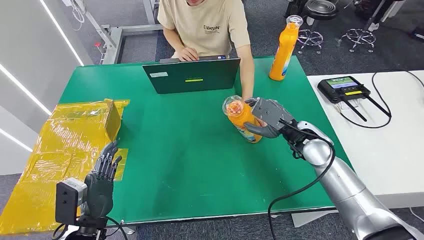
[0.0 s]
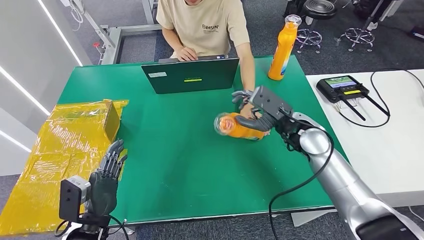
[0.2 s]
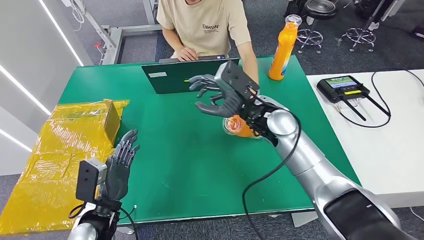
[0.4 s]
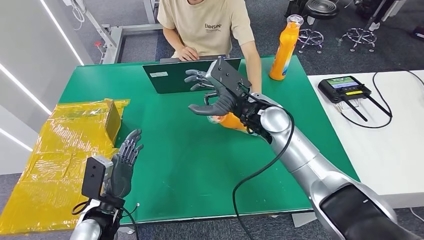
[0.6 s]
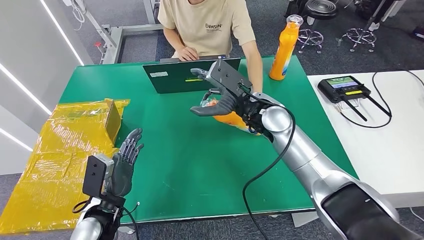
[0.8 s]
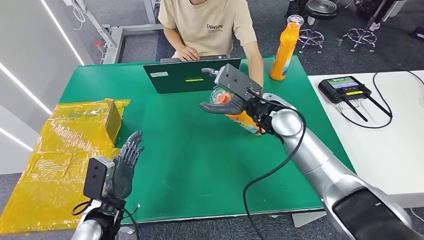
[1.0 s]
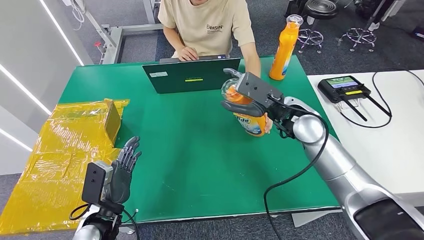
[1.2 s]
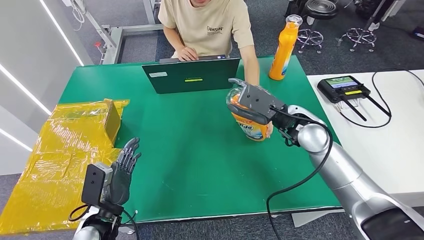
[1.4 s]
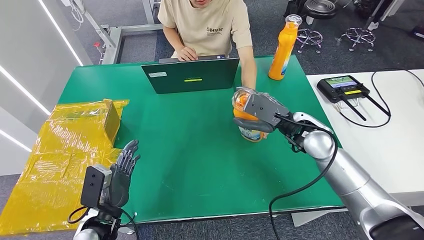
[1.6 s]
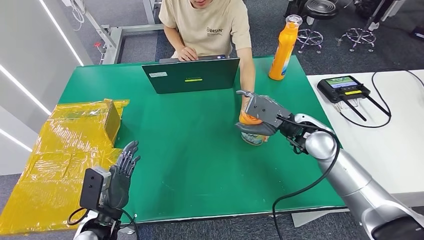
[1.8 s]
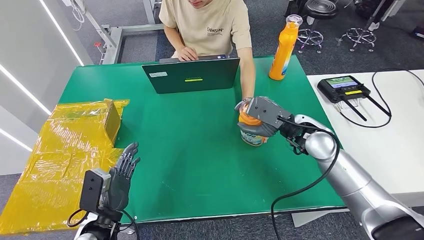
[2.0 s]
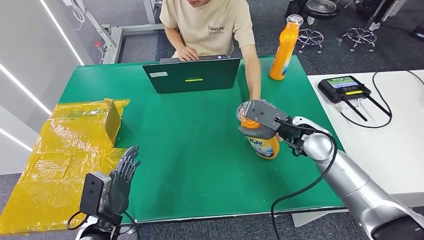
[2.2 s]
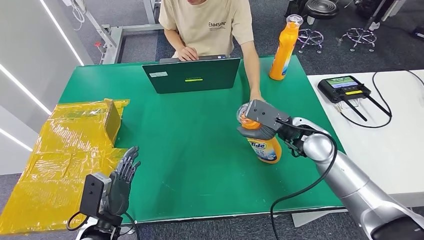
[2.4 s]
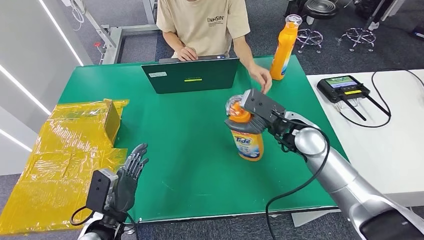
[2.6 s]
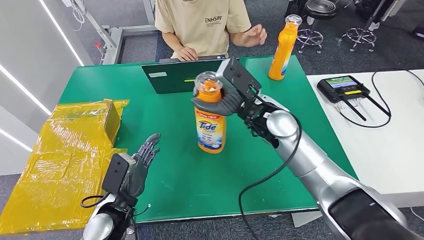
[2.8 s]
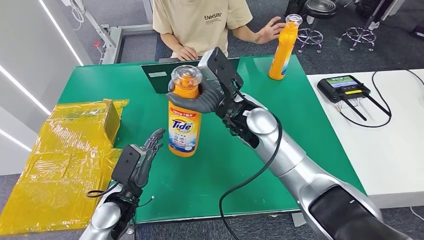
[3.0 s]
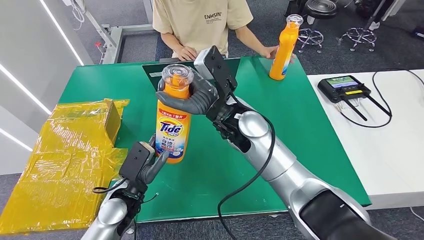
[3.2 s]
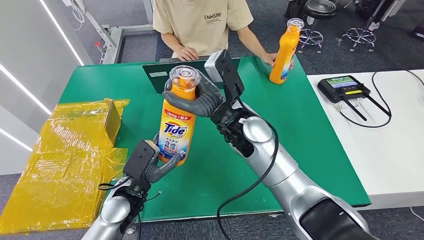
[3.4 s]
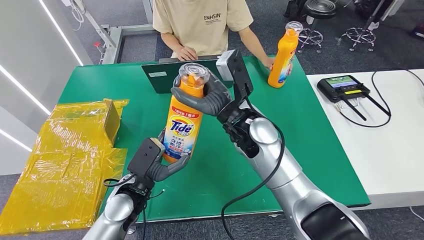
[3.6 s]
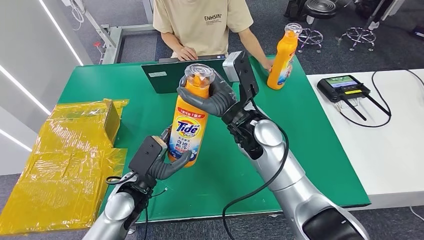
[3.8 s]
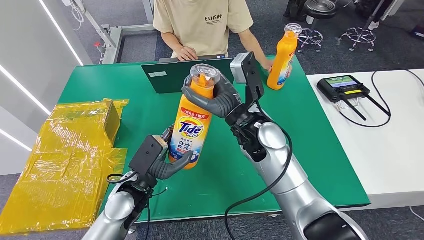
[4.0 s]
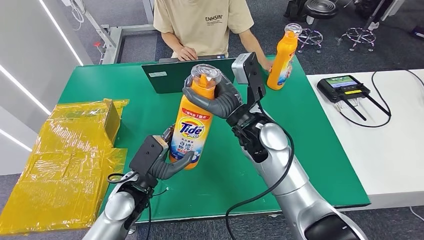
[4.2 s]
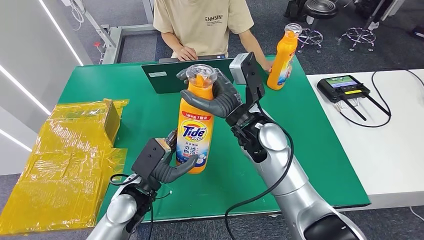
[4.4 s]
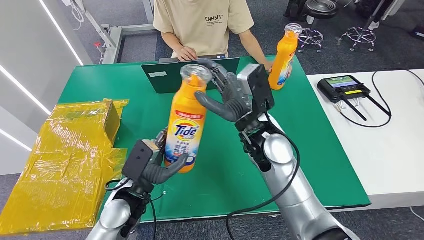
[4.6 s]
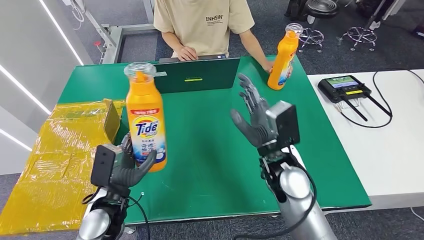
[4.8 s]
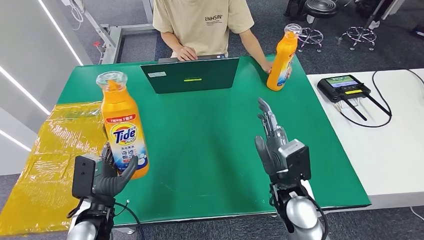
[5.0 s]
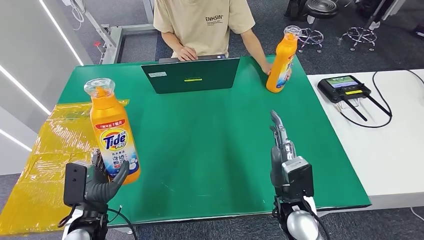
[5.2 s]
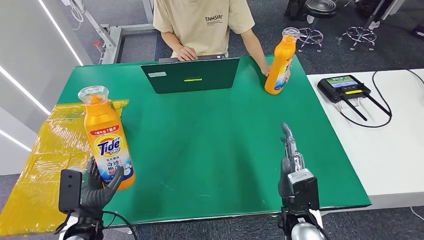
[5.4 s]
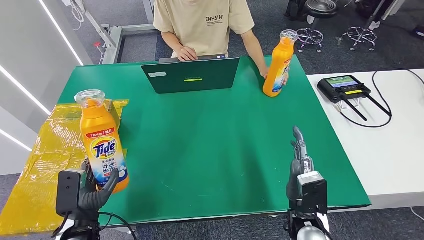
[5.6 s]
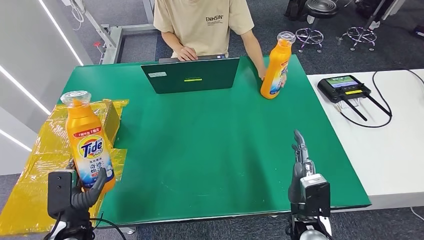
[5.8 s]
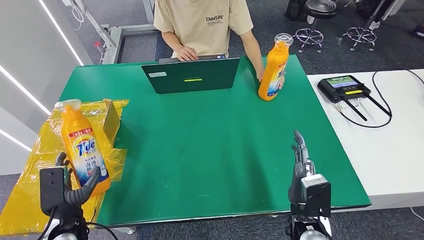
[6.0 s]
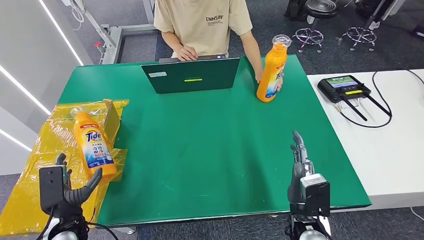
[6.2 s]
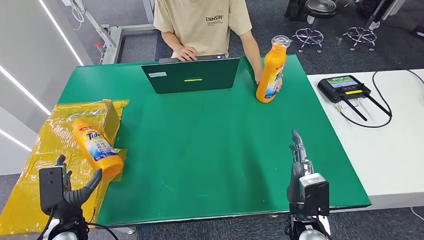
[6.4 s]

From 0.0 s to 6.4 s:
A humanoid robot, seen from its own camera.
Step, from 0.0 s to 3.2 s: Pick up the bottle from the table.
Step, from 3.4 s to 6.4 s: Turn the bottle to the front side.

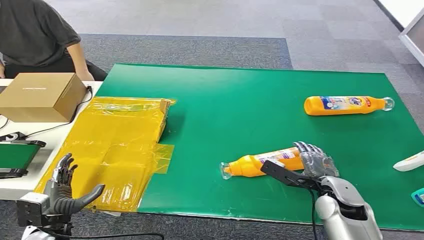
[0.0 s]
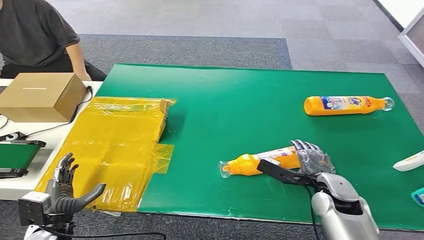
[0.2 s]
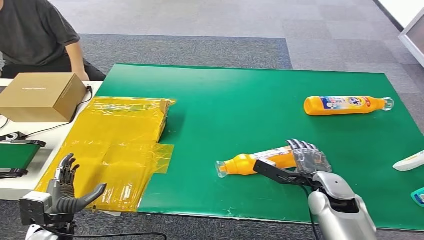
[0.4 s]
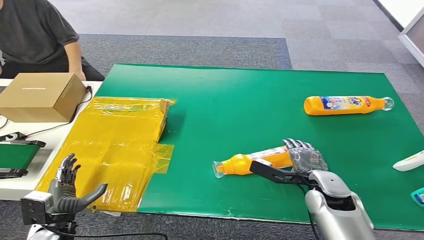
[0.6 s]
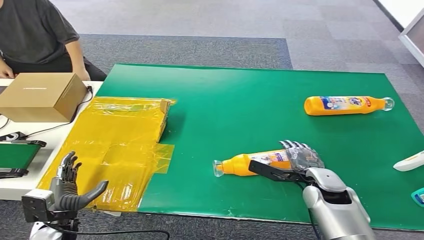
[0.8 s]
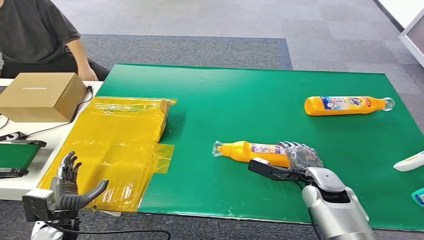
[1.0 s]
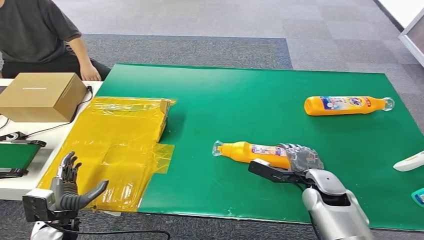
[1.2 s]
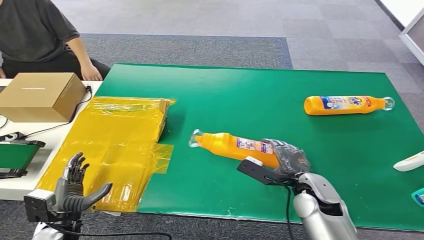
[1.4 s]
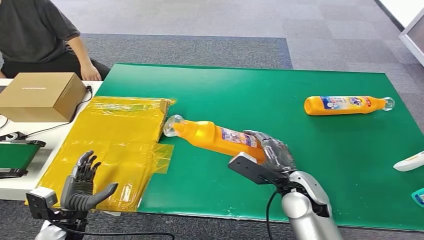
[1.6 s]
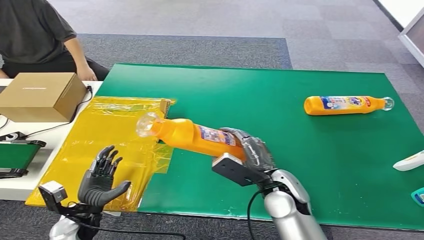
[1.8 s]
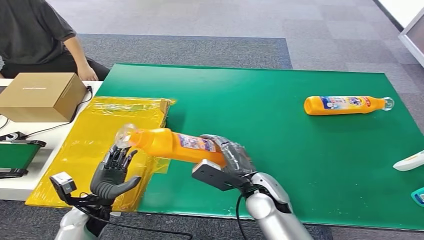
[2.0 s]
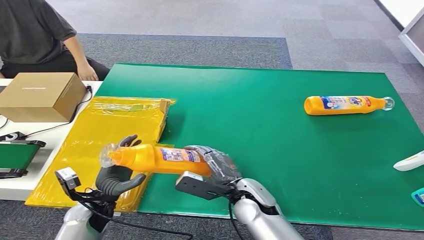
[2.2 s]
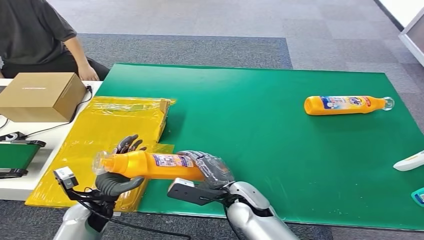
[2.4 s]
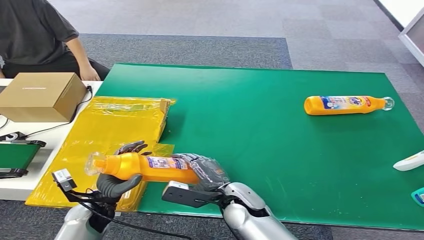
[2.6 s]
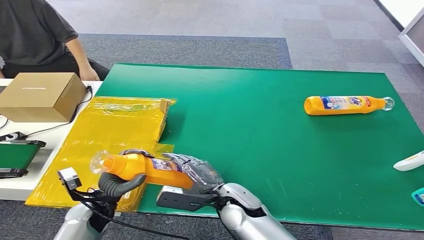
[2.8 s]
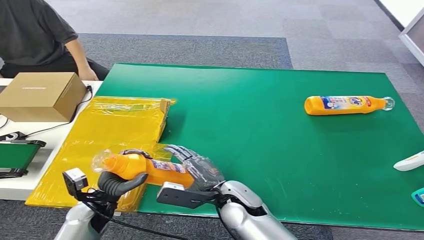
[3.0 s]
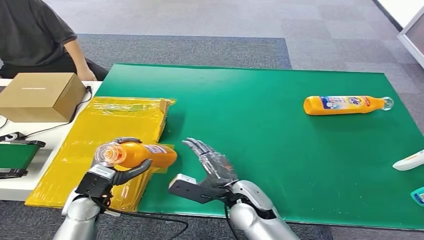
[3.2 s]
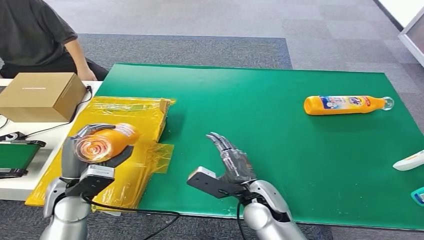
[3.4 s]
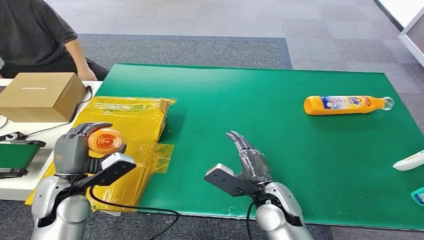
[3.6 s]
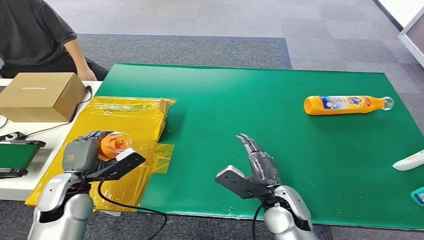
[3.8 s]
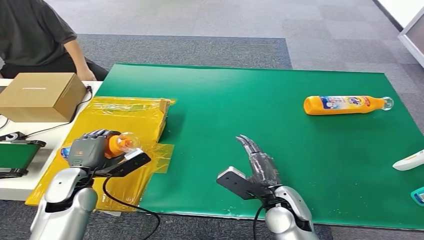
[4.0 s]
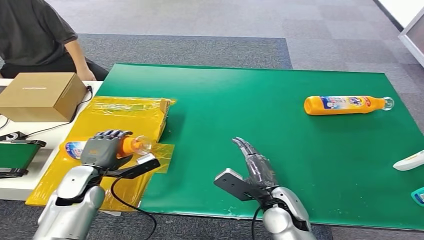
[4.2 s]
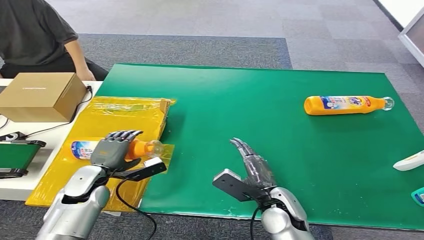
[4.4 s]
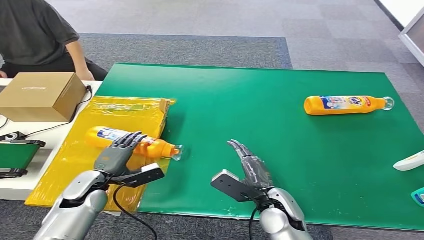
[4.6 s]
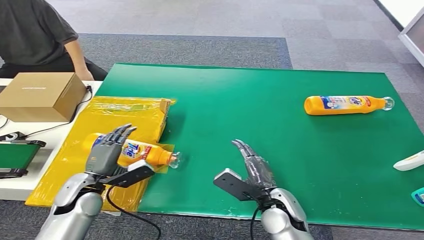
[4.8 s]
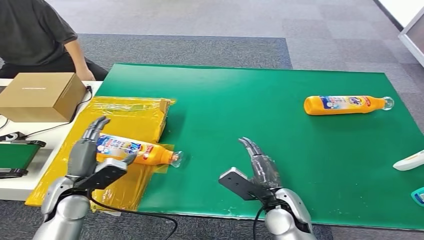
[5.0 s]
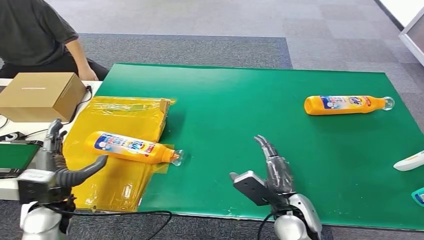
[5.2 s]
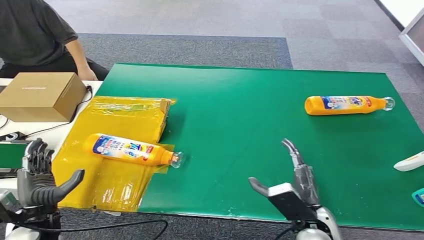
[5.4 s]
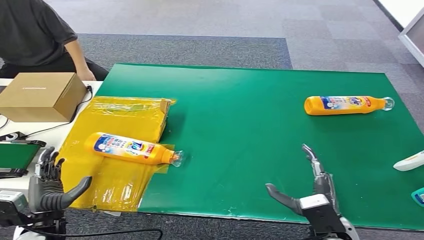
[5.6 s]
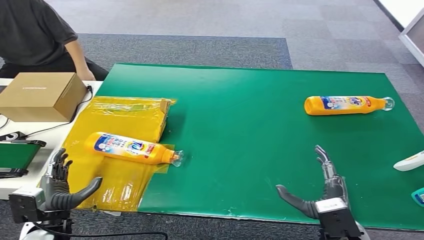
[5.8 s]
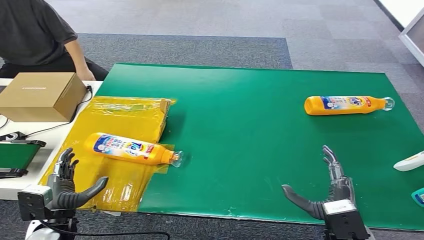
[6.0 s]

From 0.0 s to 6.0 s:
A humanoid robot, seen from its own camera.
Step, from 0.0 s to 1.8 s: Pick up the bottle from the table.
Step, from 2.0 s to 6.0 s: Turn the bottle to the front side.
From 1.6 s to 3.0 s: The right hand heads to the left, covering about 15 cm; the left hand moves to the right, approximately 5 cm.
From 3.0 s to 4.4 s: The left hand travels forward by approximately 5 cm, and reaches some 10 cm upward, then returns, while the right hand moves to the right, some 10 cm.
From 4.4 s to 6.0 s: The left hand heads backward, covering some 10 cm. Meanwhile the right hand is displaced to the right and backward by approximately 15 cm.
